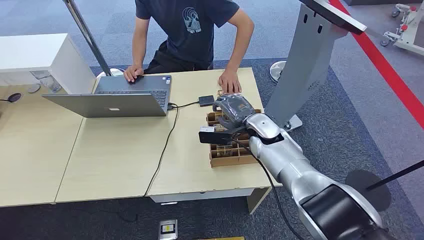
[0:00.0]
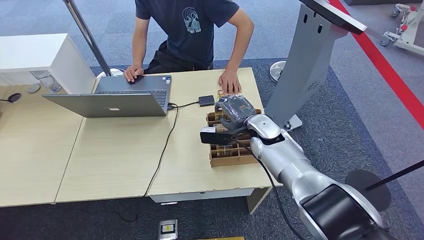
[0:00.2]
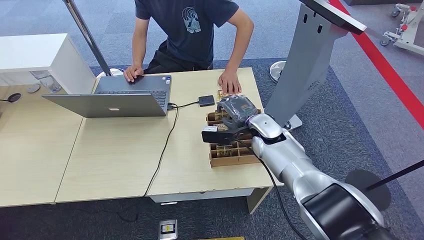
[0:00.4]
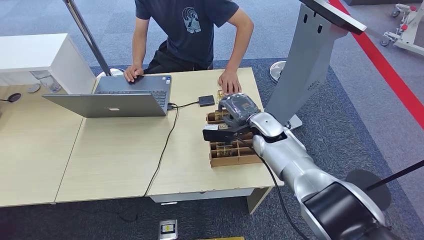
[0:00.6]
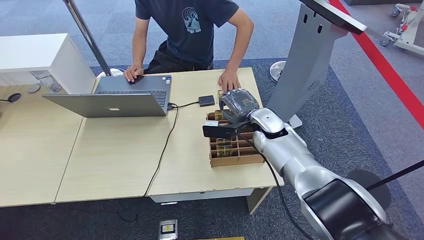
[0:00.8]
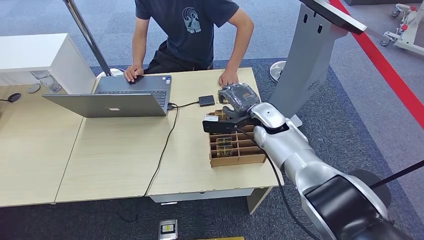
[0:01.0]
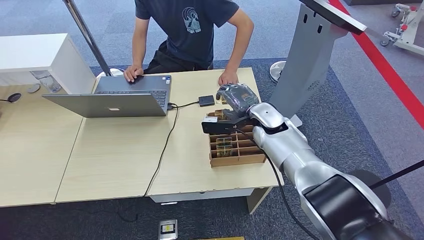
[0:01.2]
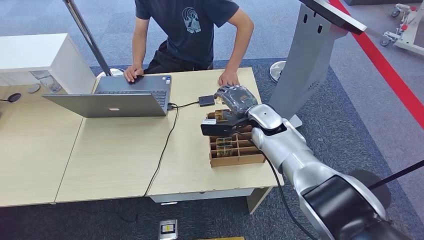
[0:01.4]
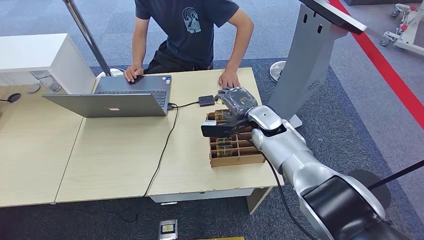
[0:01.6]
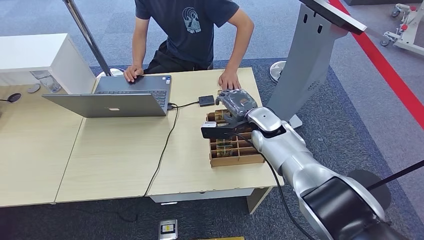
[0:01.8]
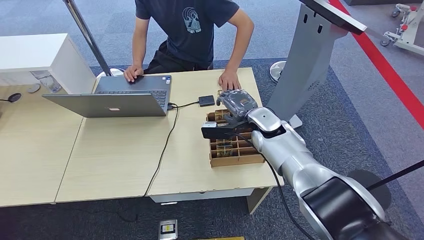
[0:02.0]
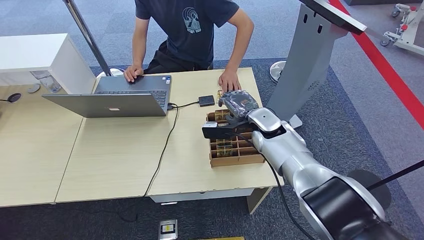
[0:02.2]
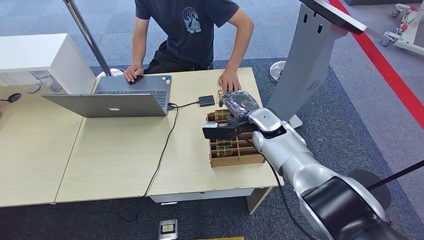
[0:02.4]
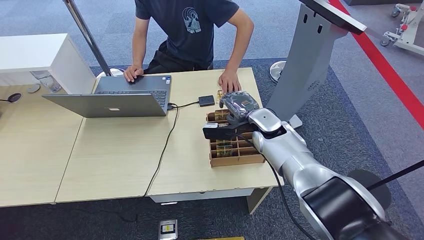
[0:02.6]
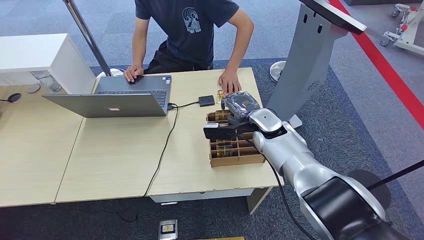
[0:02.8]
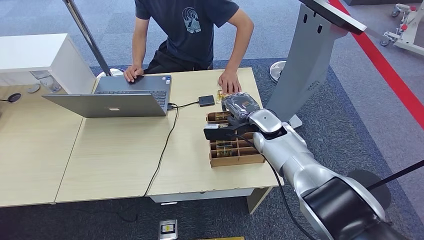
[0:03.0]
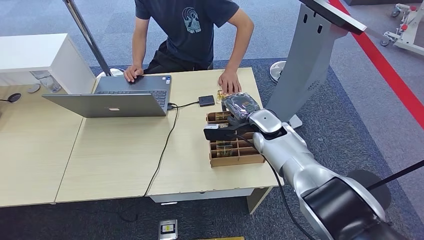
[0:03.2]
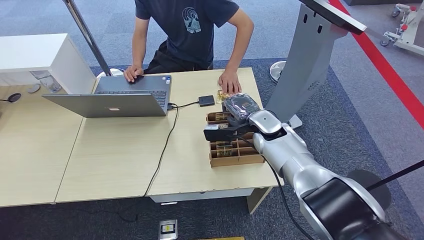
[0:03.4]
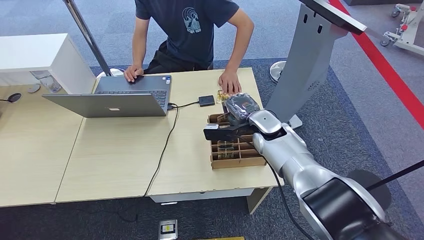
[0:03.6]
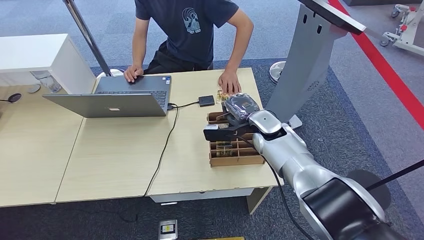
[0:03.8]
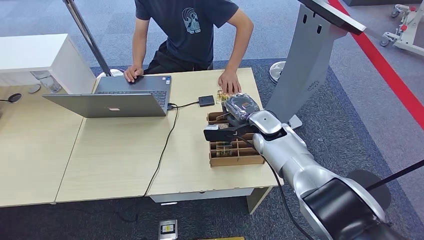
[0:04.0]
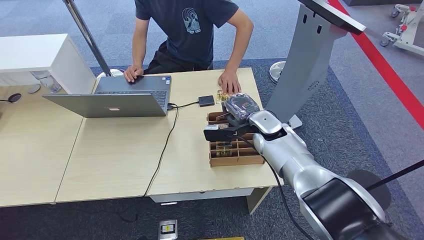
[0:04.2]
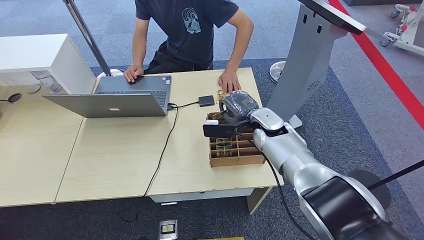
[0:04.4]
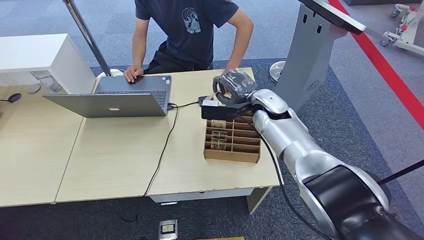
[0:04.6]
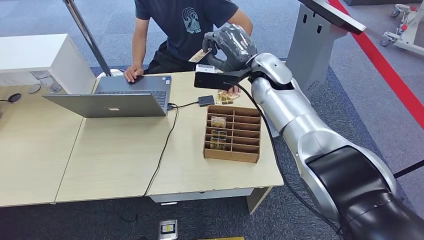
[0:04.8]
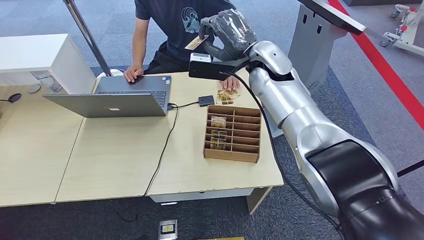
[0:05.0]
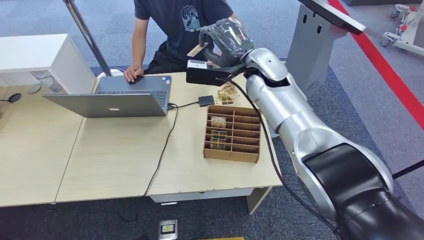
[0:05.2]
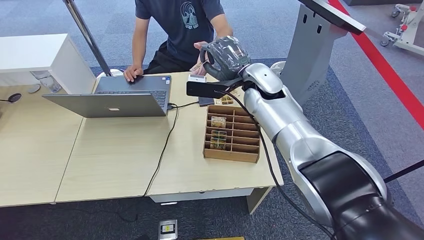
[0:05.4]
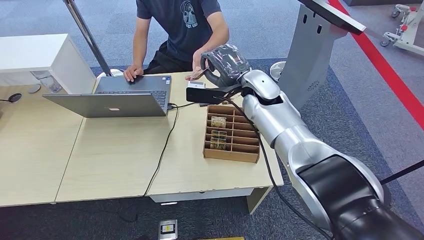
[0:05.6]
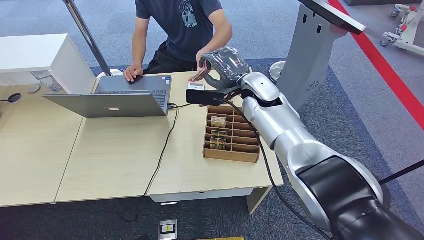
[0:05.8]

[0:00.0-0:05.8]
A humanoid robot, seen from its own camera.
Step, 0:00.0 to 0:04.6: Pick up the room card from the card holder.
Step, 0:04.8 to 0:05.8: Hand the room card to the target.
0:01.4 to 0:04.4: The hands stay close to where they were, moving slightly.
0:04.4 to 0:05.8: The right hand moves upward, some 10 cm.

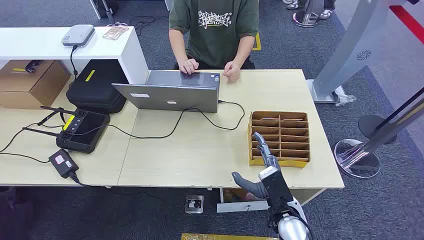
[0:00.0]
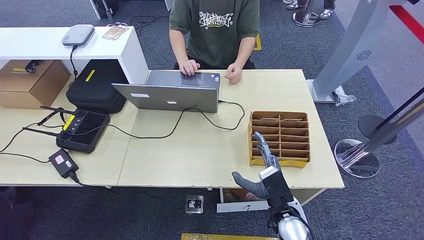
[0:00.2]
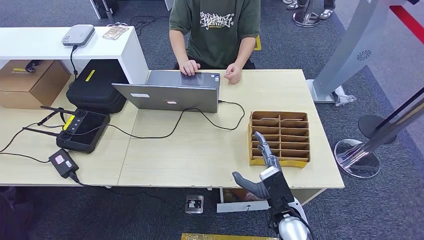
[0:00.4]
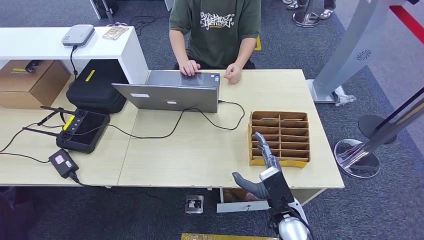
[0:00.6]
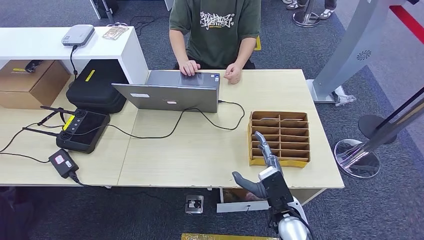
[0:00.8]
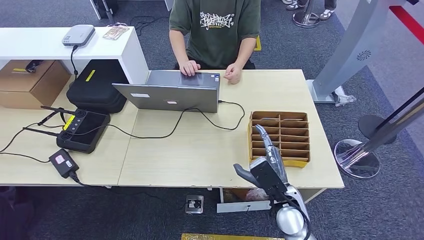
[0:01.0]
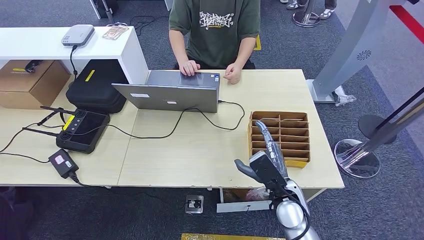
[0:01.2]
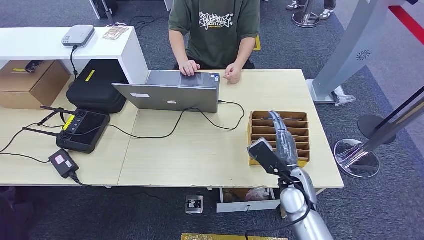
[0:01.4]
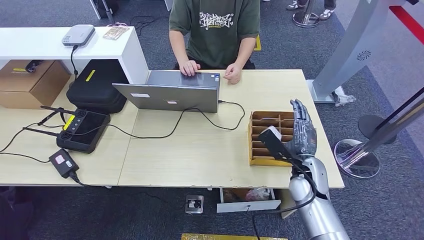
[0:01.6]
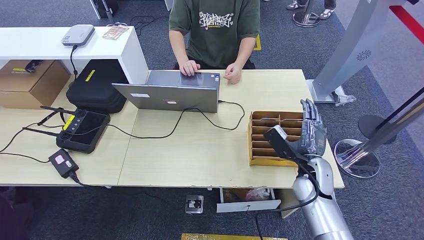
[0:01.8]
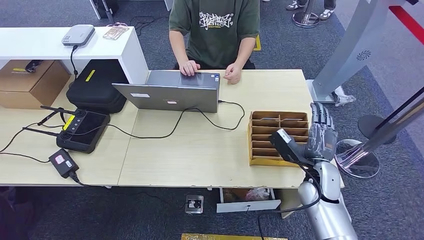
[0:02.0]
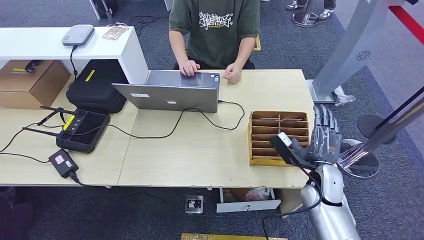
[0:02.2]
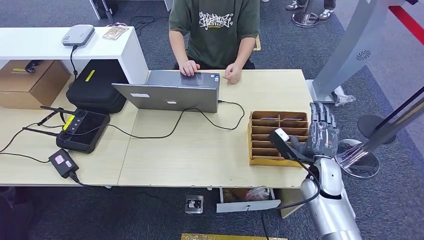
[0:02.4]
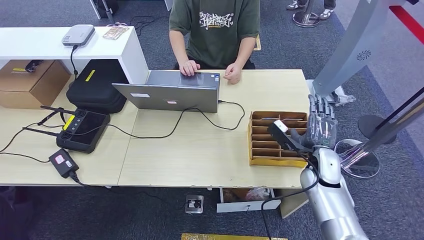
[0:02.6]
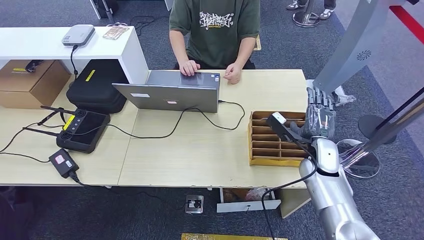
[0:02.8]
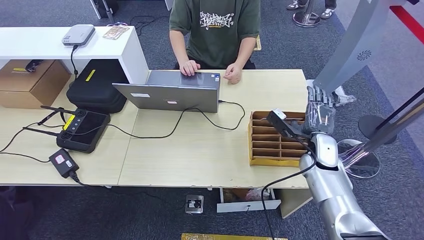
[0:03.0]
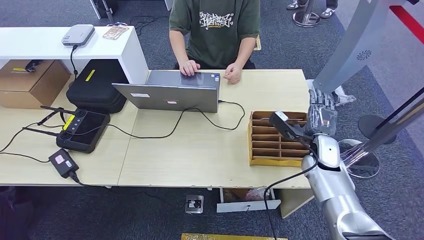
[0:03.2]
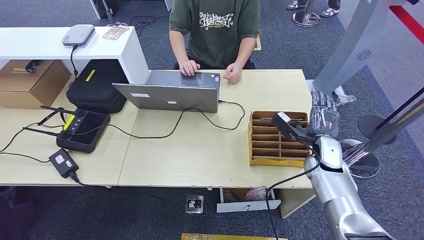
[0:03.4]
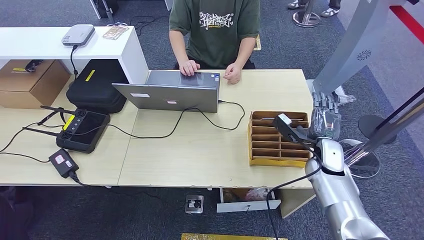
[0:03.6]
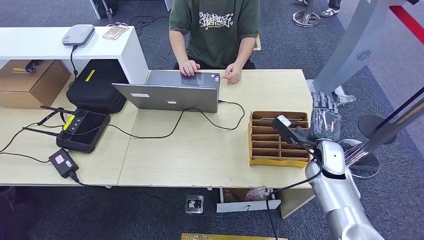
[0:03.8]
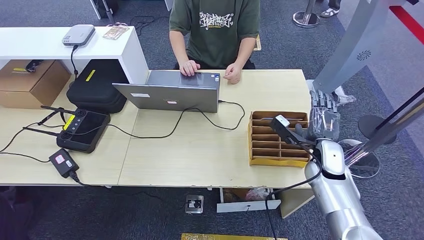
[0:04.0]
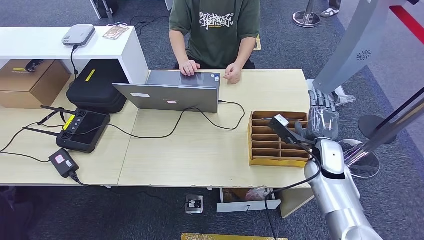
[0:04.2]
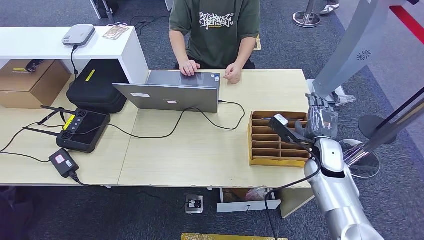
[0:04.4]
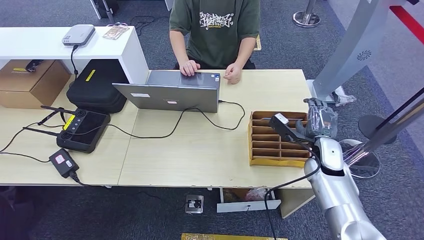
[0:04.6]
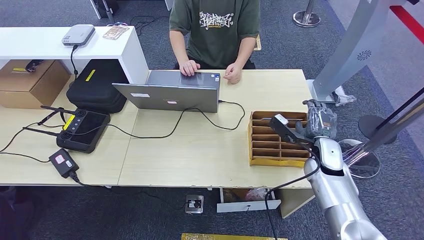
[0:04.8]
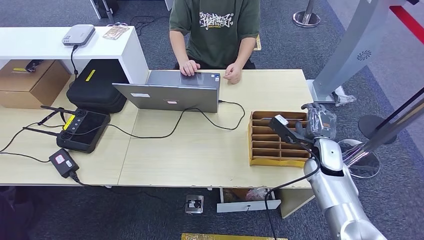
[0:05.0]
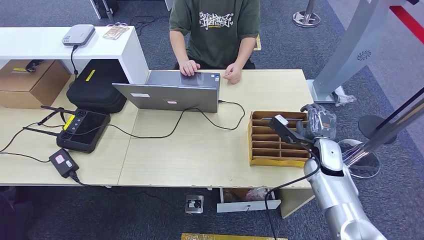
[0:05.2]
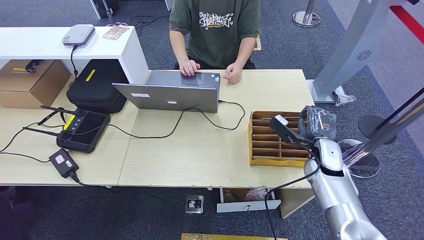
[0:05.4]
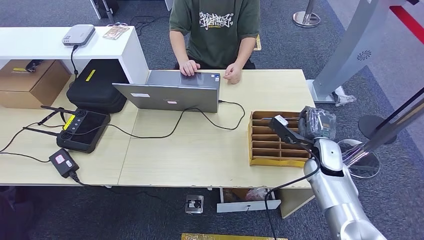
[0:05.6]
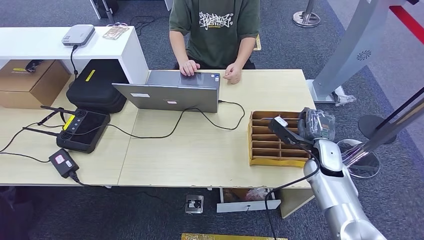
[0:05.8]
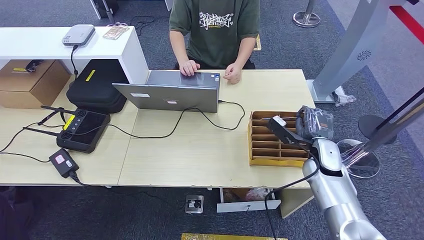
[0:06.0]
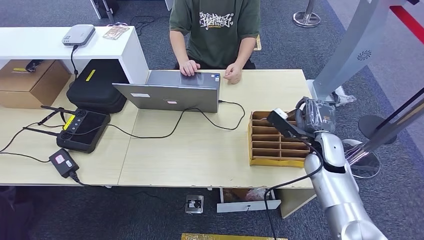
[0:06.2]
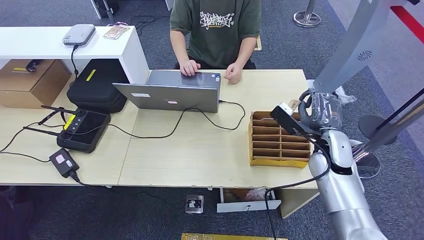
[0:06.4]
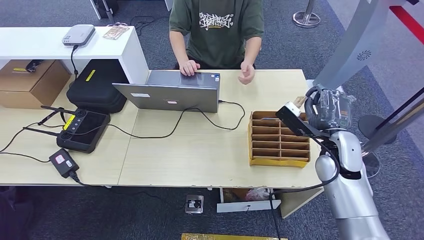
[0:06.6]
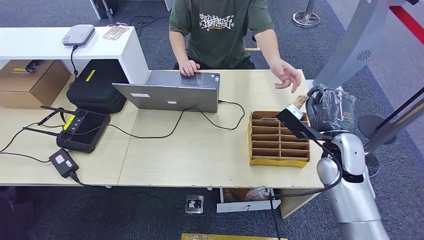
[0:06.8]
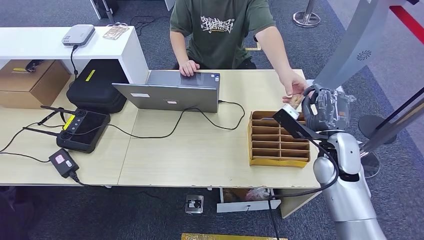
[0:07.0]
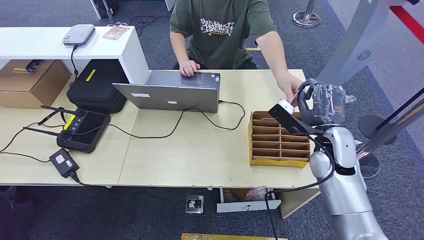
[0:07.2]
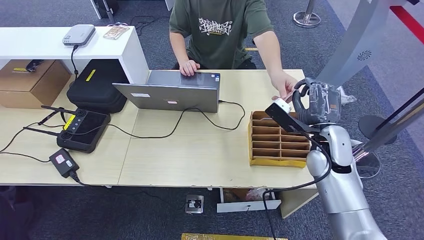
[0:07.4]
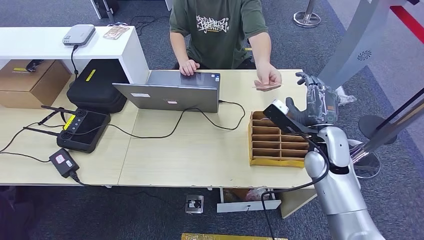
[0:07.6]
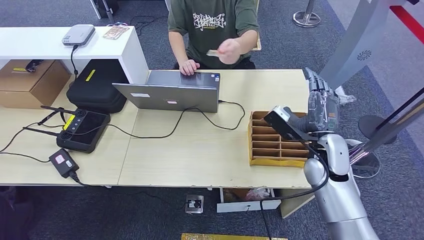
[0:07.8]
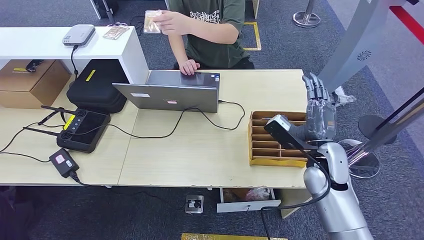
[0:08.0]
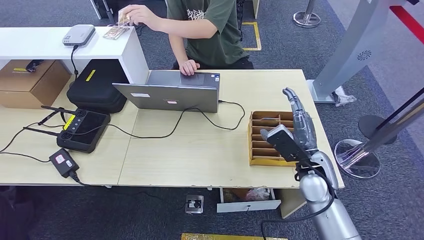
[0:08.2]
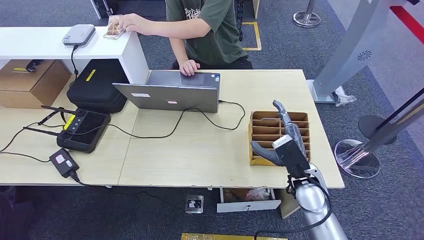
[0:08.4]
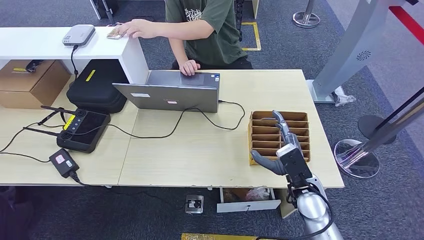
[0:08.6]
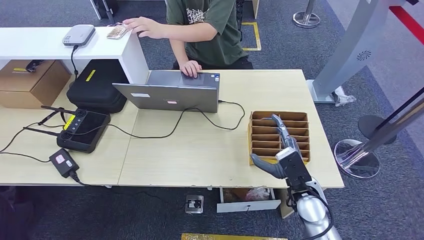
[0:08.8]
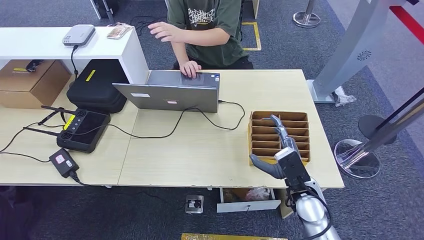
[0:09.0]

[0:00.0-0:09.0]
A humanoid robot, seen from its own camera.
Step, 0:00.0 to 0:06.6: Pick up the room card from the card holder.
Step, 0:06.8 to 0:09.0: Hand the room card to the target.
0:01.6 to 0:03.0: The right hand shifts approximately 10 cm forward and to the right.
0:03.0 to 0:04.4: The hands make only small movements.
0:04.4 to 0:06.0: Both hands stay about where they are.
0:06.0 to 0:07.6: The right hand heads upward, covering roughly 10 cm.
0:07.6 to 0:09.0: The right hand is displaced downward and backward by approximately 15 cm.
